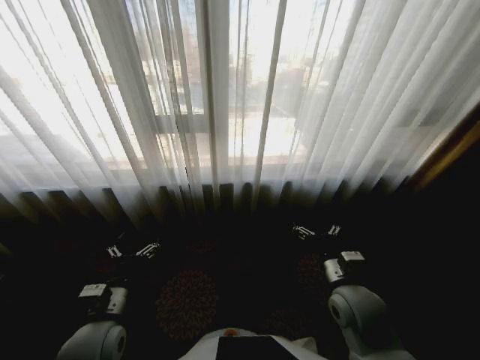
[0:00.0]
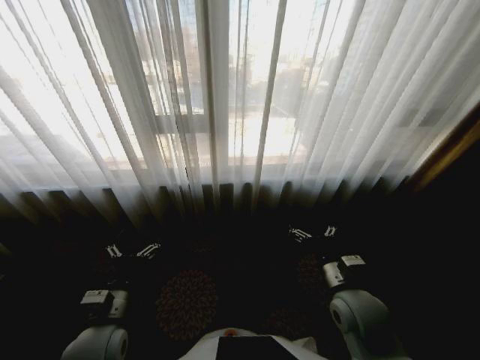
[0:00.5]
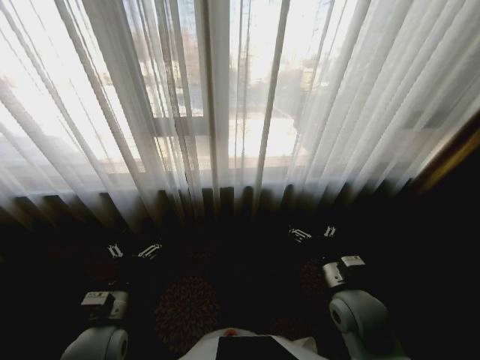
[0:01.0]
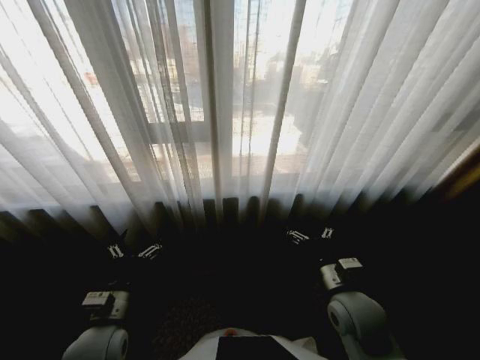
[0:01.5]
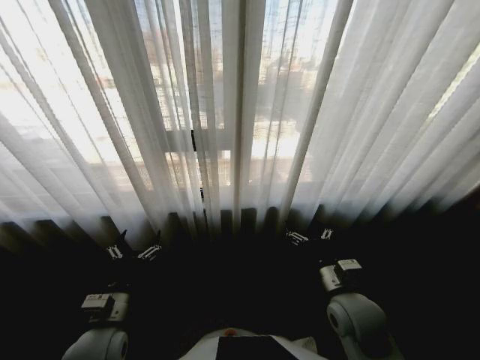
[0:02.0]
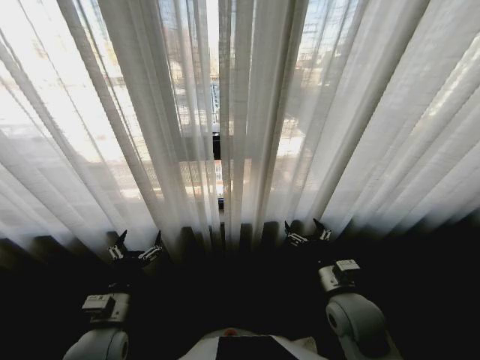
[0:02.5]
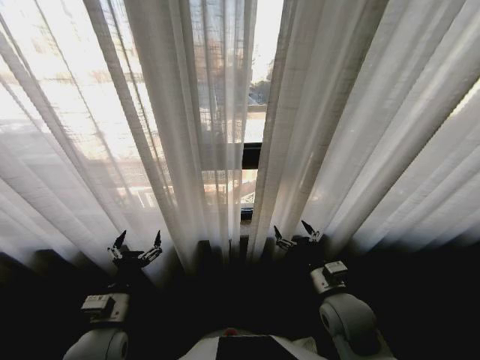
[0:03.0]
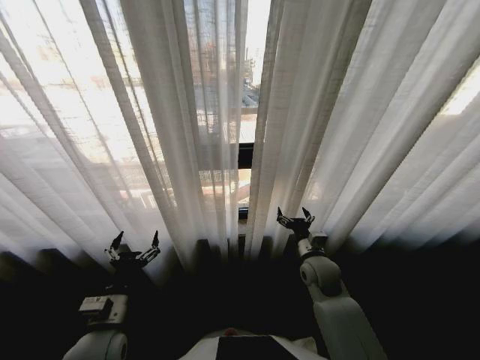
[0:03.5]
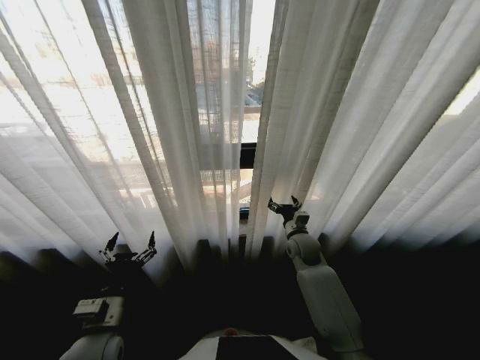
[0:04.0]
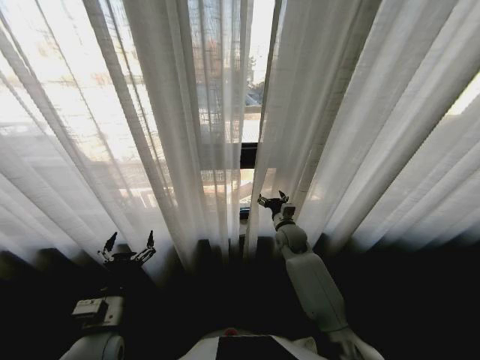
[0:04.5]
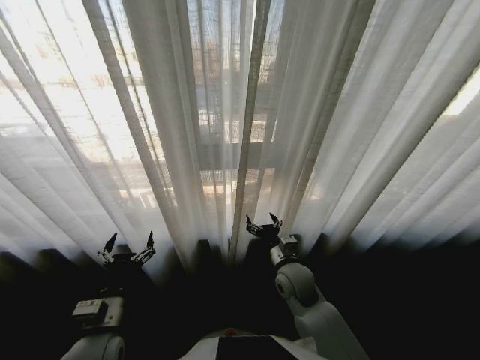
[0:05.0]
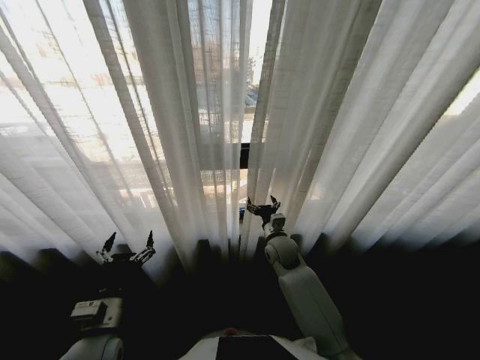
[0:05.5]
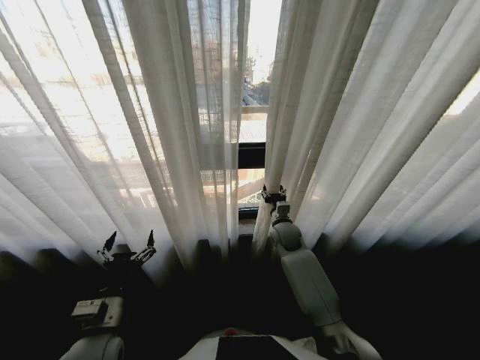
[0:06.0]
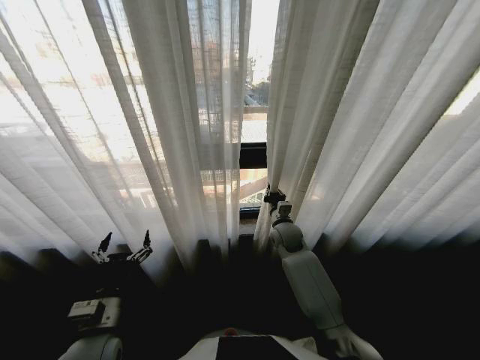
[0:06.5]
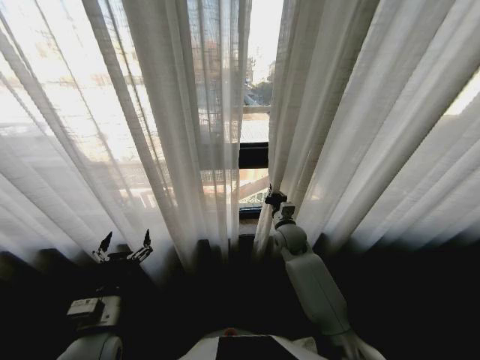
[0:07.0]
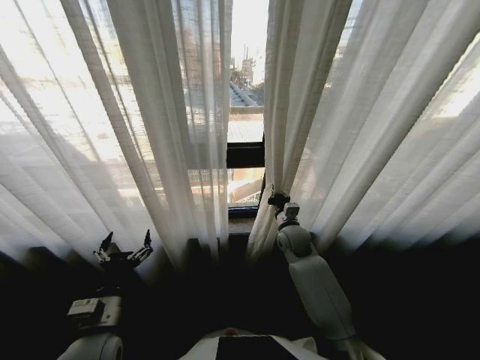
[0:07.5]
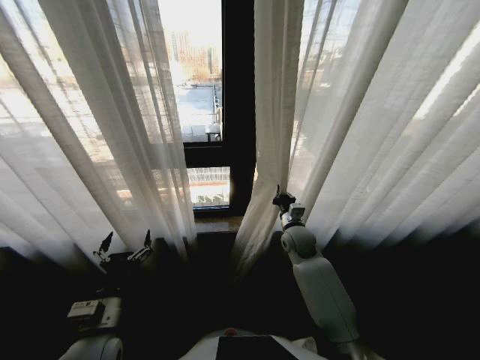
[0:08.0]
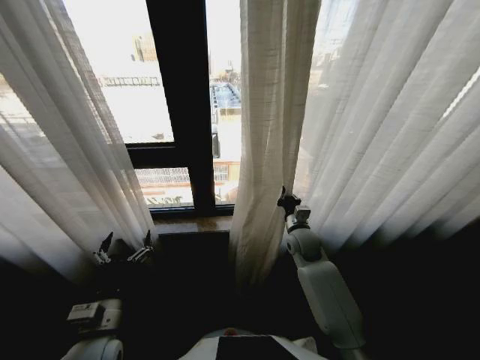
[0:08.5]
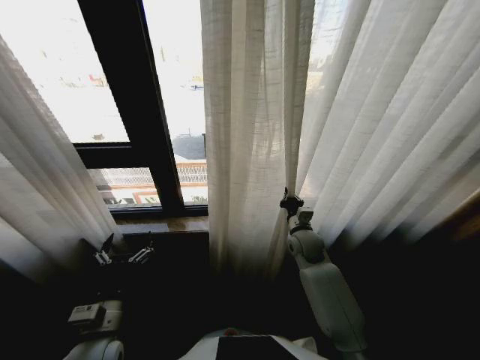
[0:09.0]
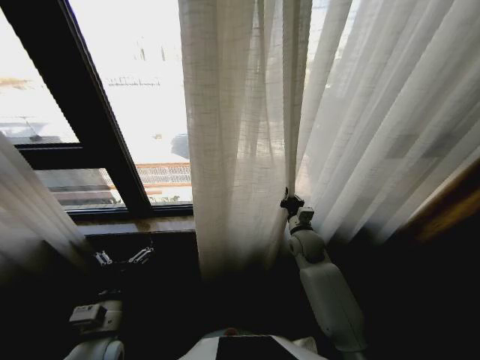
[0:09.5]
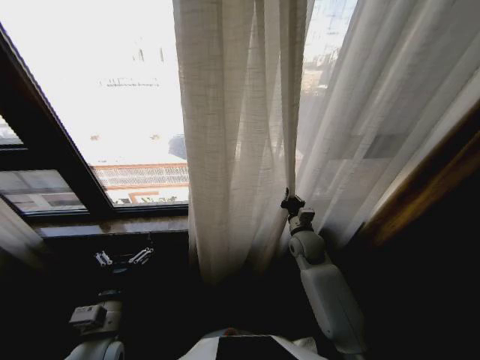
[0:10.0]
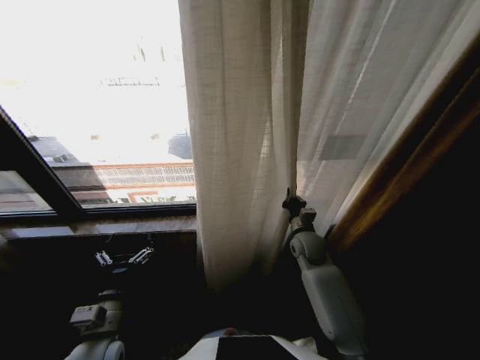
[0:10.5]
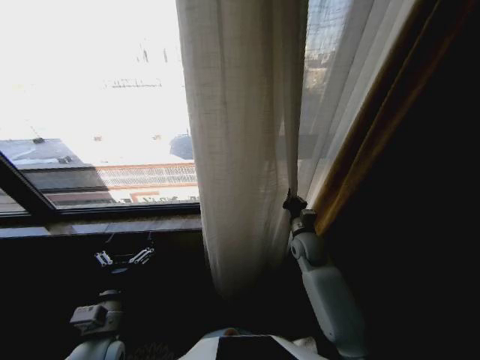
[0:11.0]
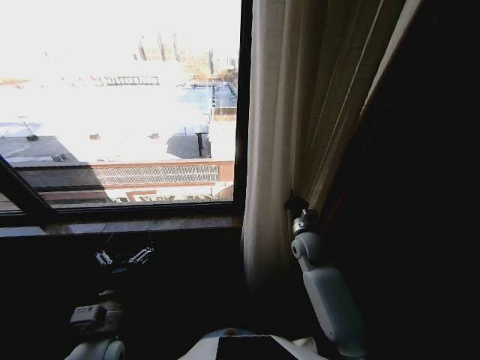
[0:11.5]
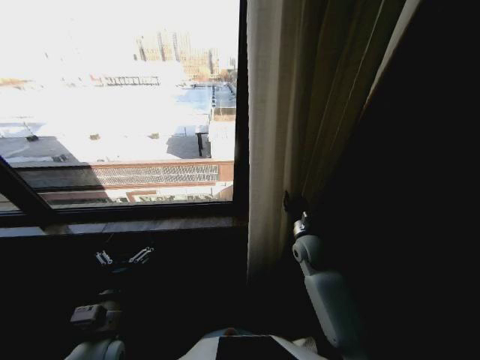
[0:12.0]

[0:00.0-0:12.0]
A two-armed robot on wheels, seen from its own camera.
Task of the whole recording: Open the curtains by pulling them apart, changing their state from closed to fully open.
0:02.0 to 0:04.0: The right gripper shifts approximately 20 cm forward.
0:04.0 to 0:06.0: The right gripper swings forward and backward, roughly 15 cm each way, with 2 reversals.
0:06.0 to 0:08.0: The right gripper closes its fingers.

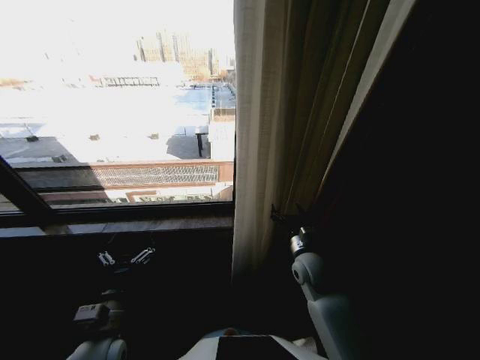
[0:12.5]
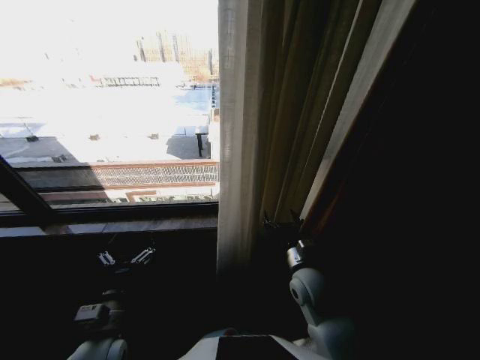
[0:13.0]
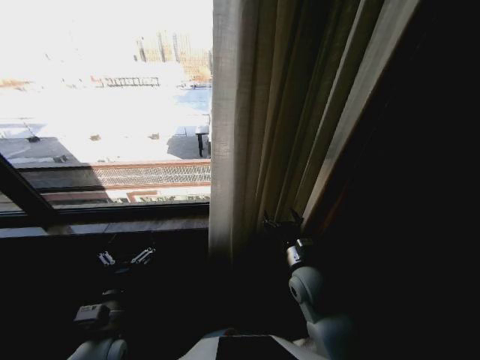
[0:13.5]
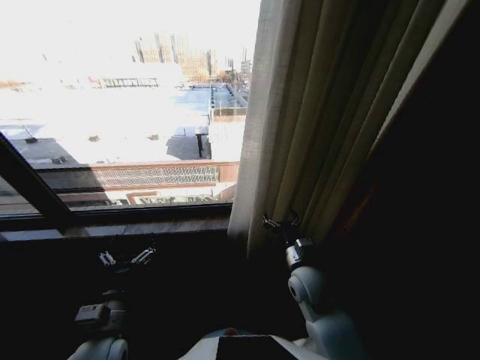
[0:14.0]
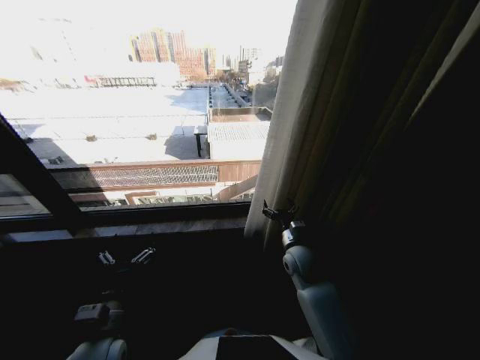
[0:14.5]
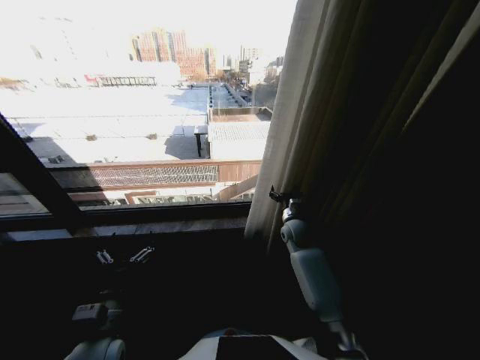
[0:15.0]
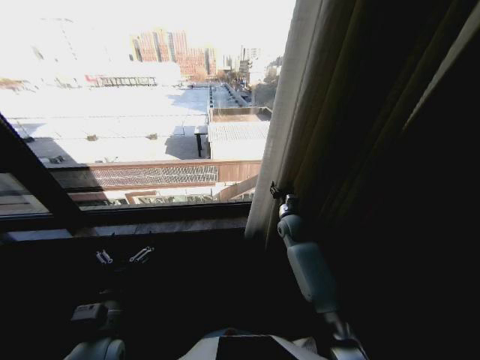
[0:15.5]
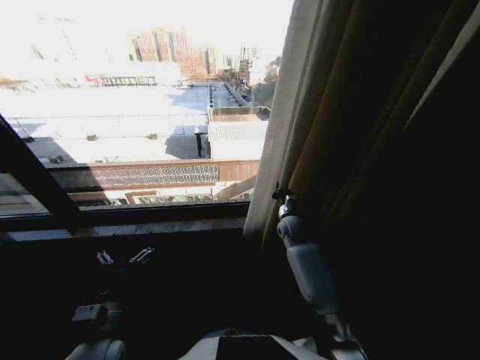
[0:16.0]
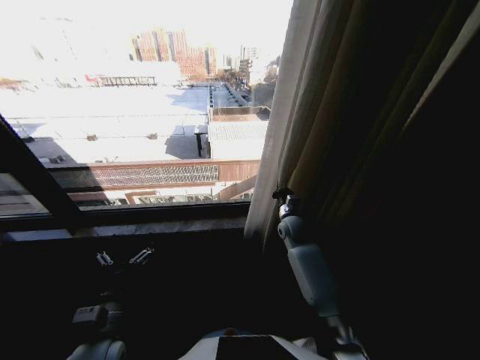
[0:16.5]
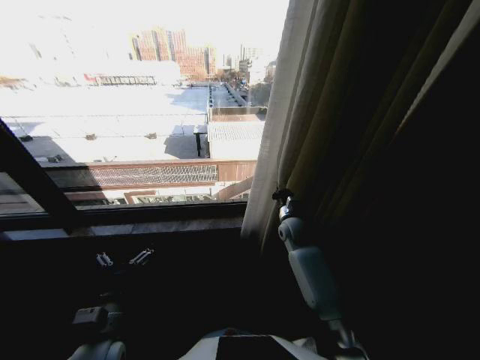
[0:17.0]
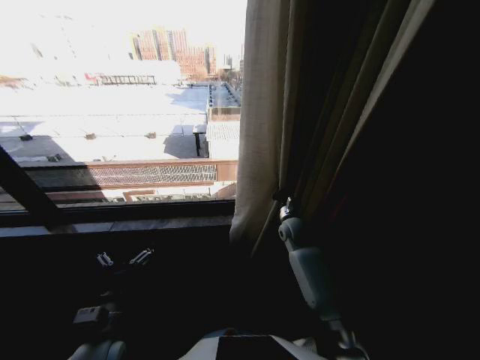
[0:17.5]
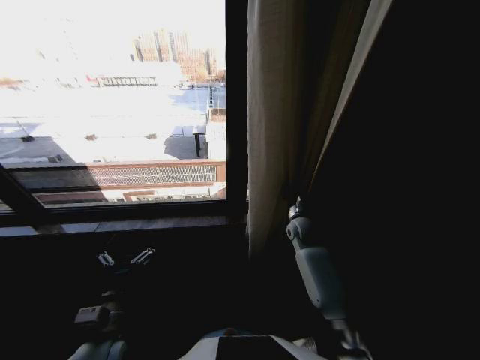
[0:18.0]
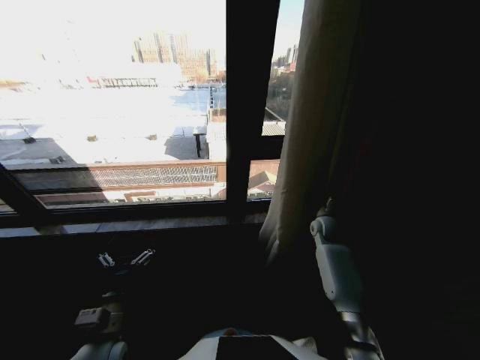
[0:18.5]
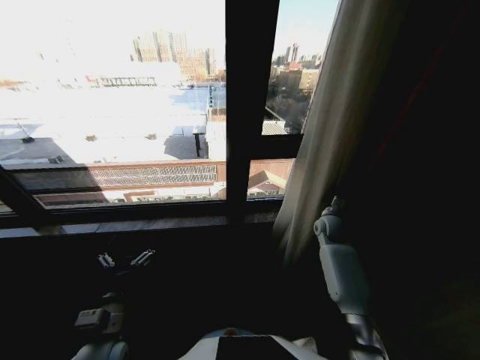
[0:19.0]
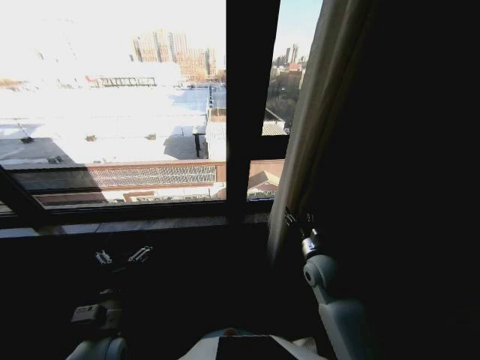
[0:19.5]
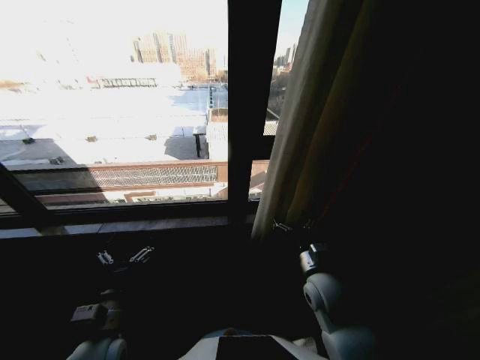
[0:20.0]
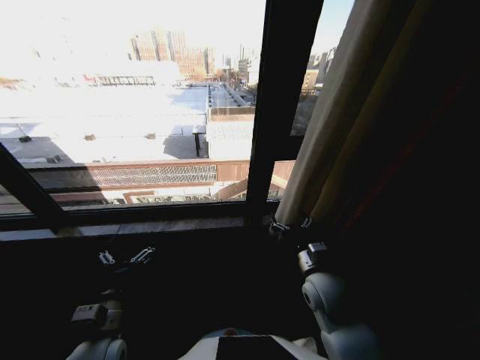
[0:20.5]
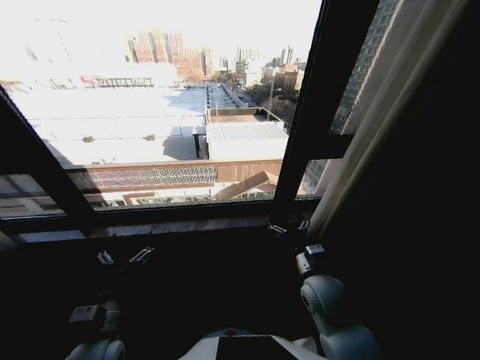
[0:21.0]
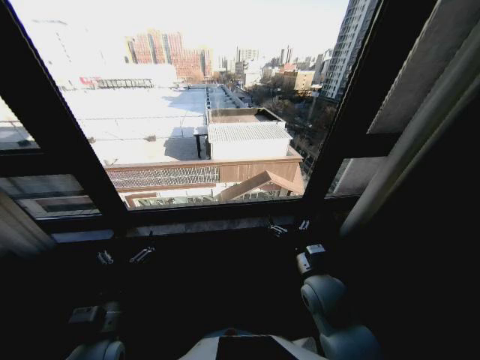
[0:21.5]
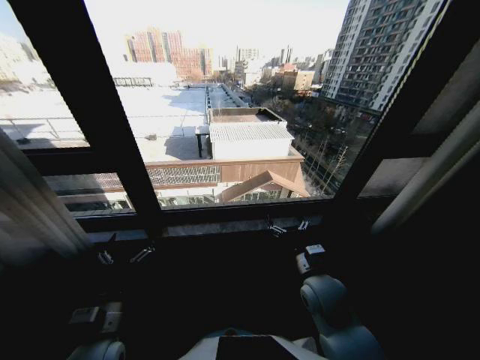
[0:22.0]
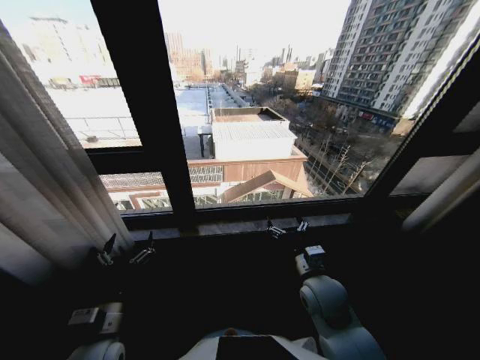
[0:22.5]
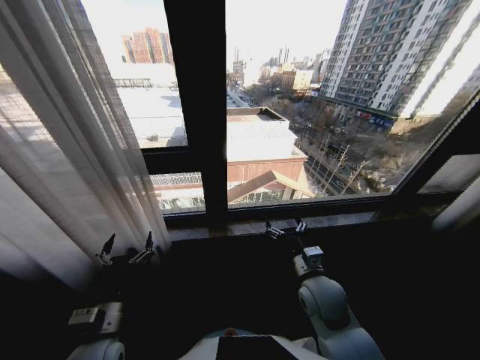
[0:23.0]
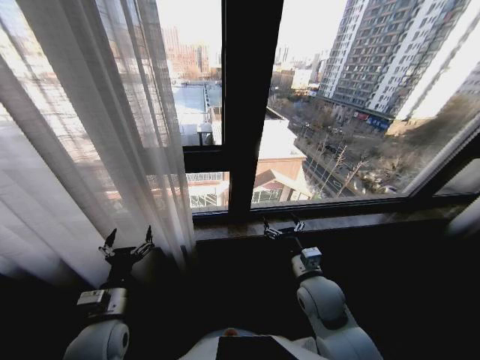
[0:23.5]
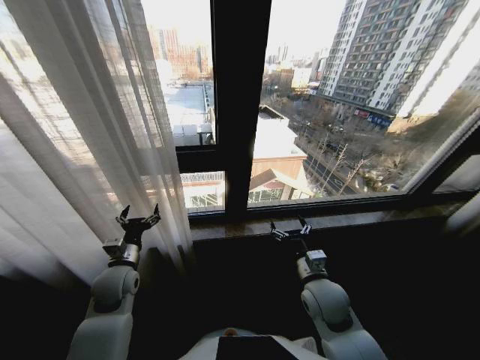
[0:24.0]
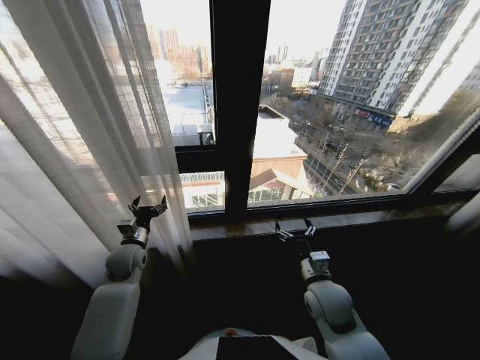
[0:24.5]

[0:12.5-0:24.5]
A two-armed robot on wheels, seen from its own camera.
Task of the whole recording: Open the curtains by pulling them apart, changing their state from closed to fully open.
0:14.5 to 0:16.5: The right gripper is displaced forward by some 15 cm, and closes up.
0:16.5 to 0:18.5: The right gripper travels to the right by approximately 15 cm.
0:18.5 to 0:20.5: The right gripper moves backward and to the left, approximately 25 cm, and opens.
0:22.5 to 0:24.5: The left gripper shifts approximately 20 cm forward.

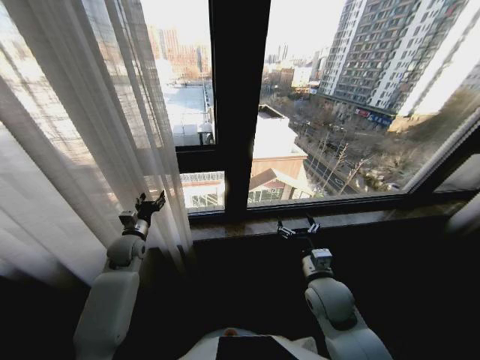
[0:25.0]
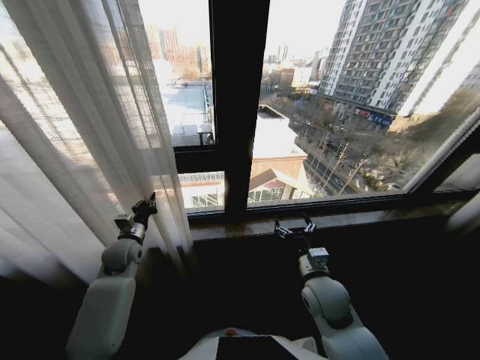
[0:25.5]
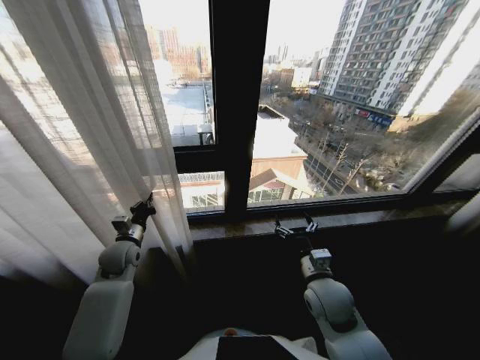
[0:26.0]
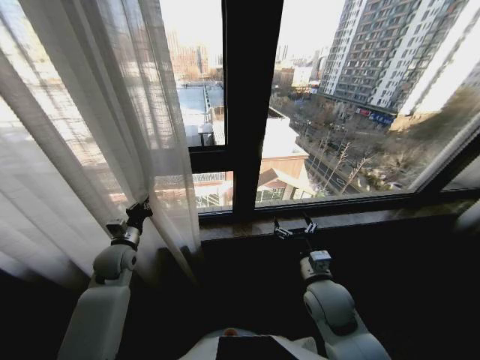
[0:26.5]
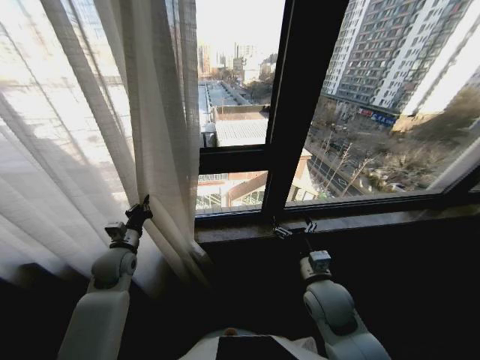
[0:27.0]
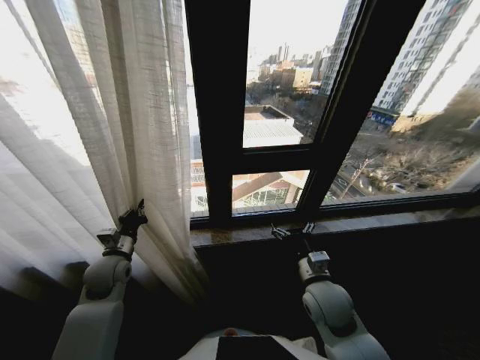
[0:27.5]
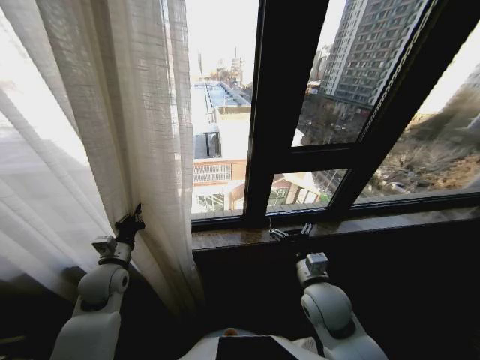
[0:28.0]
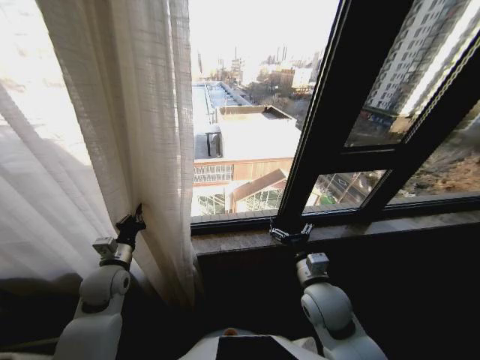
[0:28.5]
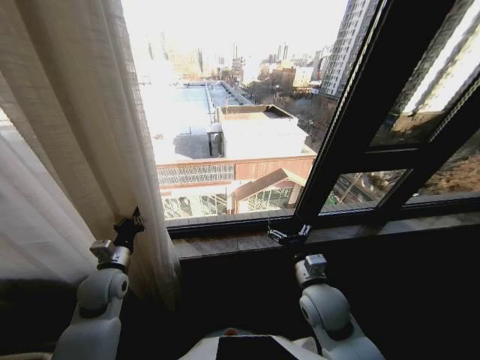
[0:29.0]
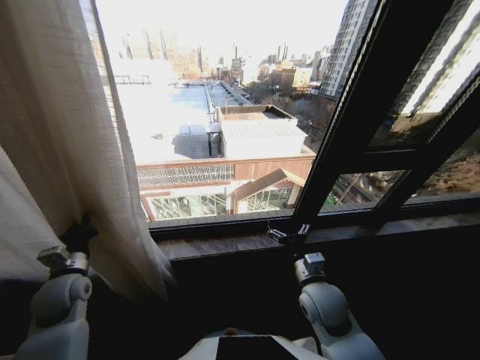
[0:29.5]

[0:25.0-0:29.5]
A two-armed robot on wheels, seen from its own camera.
Task of the whole recording: Open the curtains by pulling them apart, changing their state from closed to fully open.
0:25.0 to 0:27.0: The left gripper heads backward, covering roughly 5 cm, and closes.
0:27.0 to 0:29.5: The left gripper goes some 10 cm to the left and backward.
